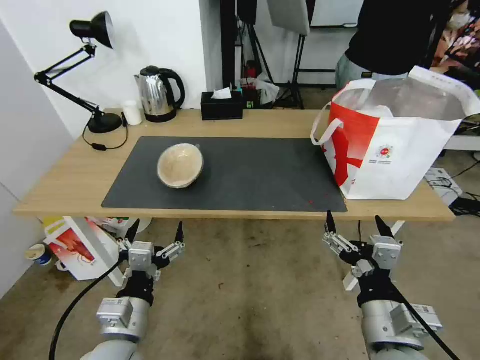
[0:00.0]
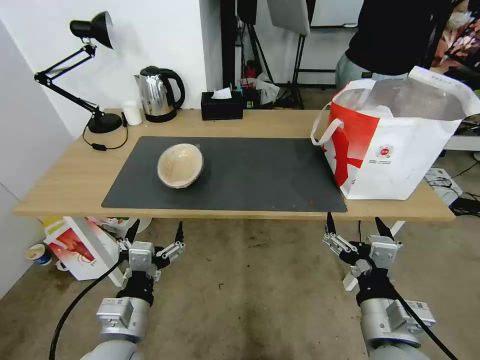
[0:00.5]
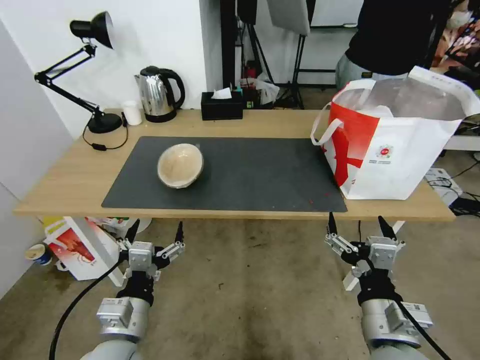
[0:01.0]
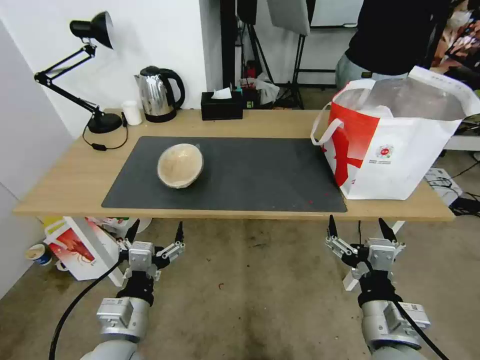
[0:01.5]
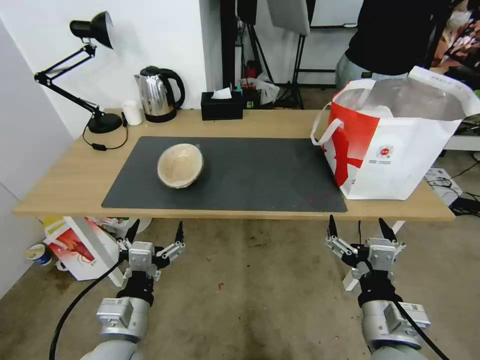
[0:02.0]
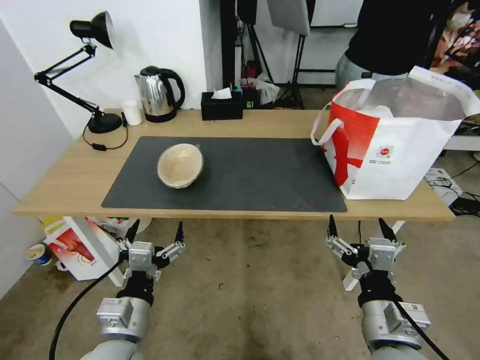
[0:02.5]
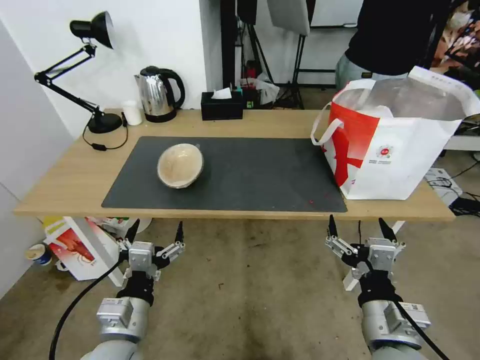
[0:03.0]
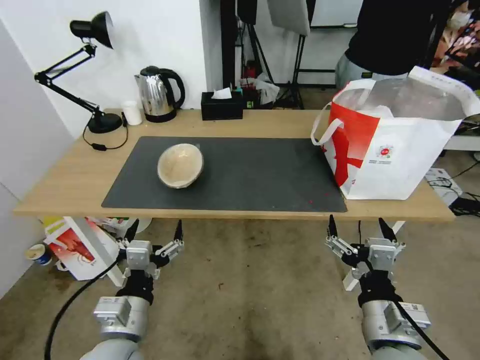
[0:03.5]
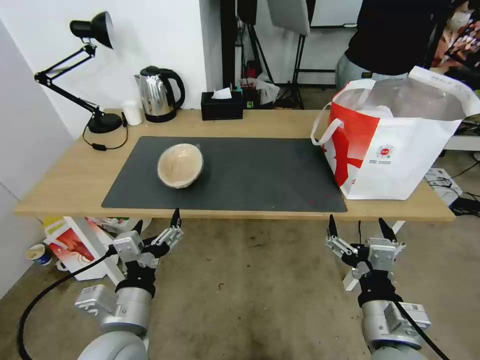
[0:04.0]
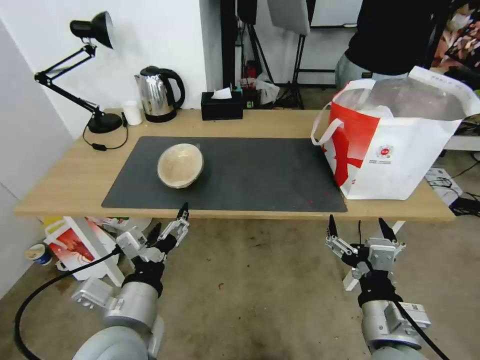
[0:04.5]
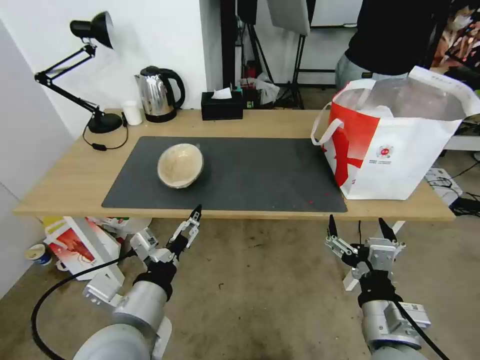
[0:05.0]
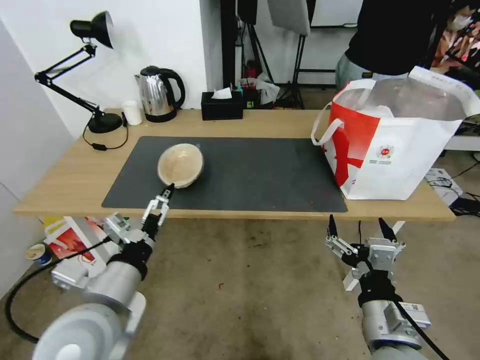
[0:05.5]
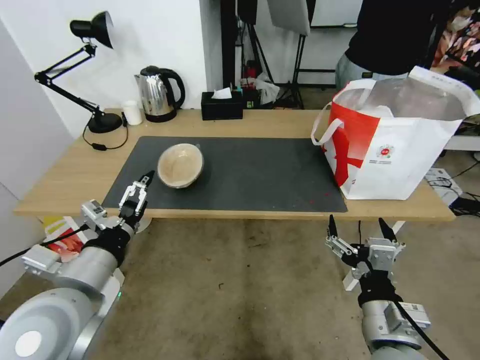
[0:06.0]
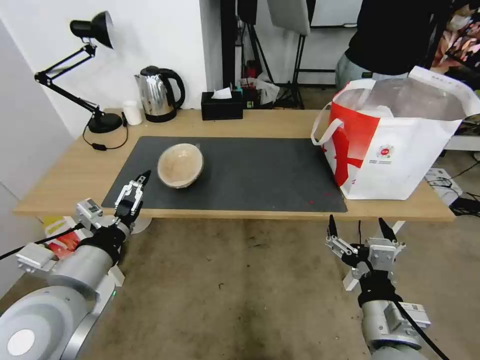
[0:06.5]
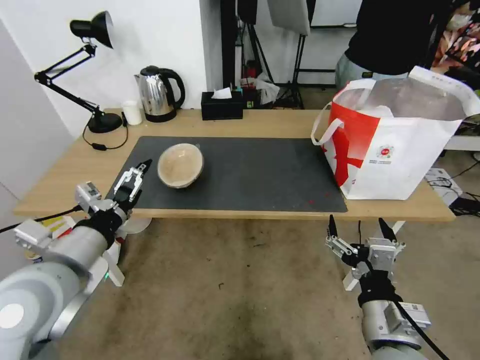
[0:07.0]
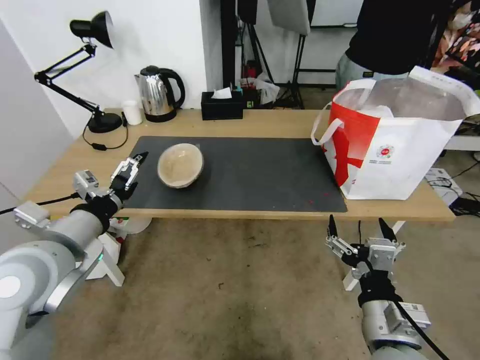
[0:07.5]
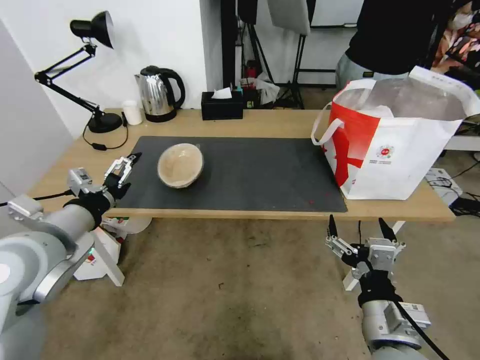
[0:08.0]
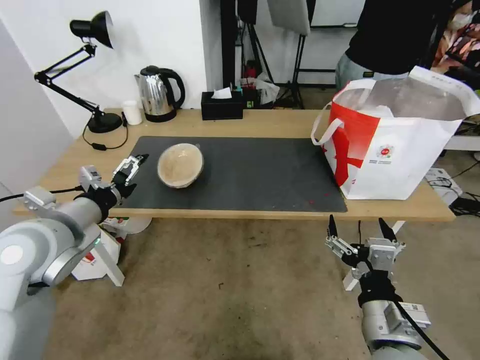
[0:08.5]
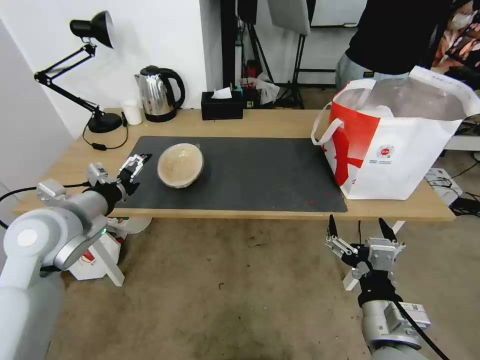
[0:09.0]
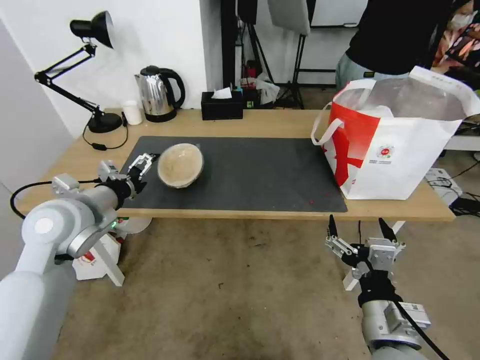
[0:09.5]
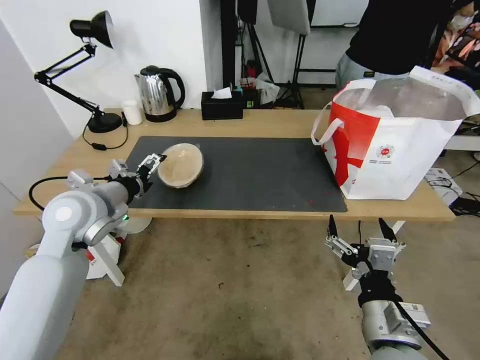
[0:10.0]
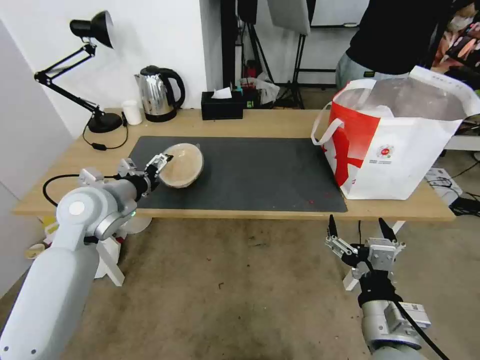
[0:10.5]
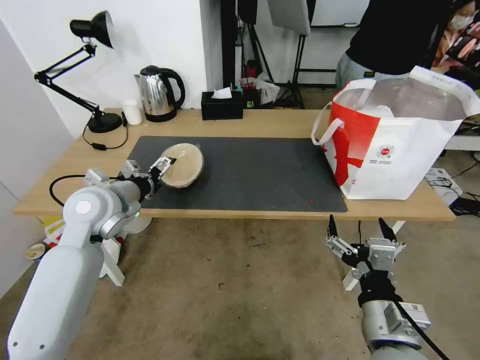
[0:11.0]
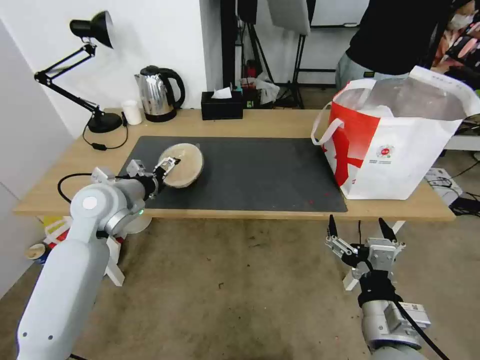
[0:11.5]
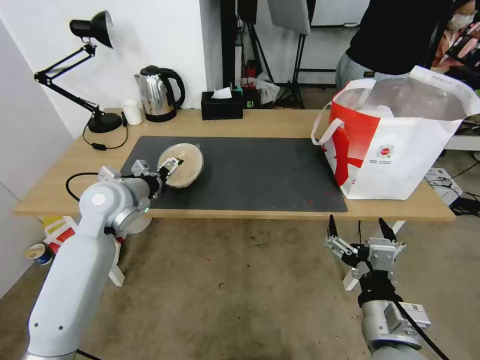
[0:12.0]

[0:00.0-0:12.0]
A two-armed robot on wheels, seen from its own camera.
Task of the whole recording: Pick up the trash from the table and place it into the takeout bag.
0:00.0 to 0:02.0: The grippers move only a little.
0:04.0 to 0:06.0: The left gripper is displaced upward and to the left by roughly 10 cm.
0:06.0 to 0:08.0: The left gripper moves forward and to the left, some 10 cm.
0:08.0 to 0:10.0: The left gripper heads forward, covering about 10 cm.
0:10.0 to 0:12.0: The left gripper ends up approximately 5 cm from where it was.

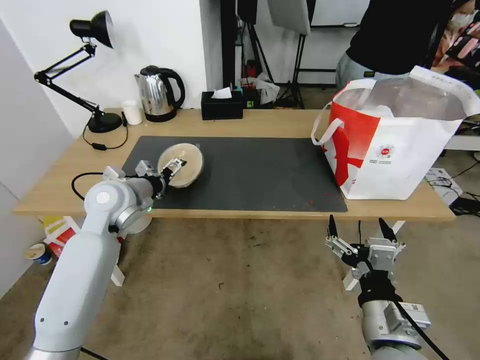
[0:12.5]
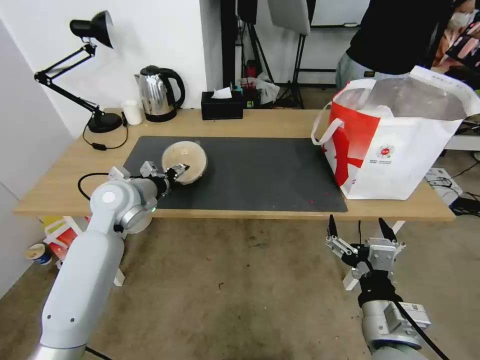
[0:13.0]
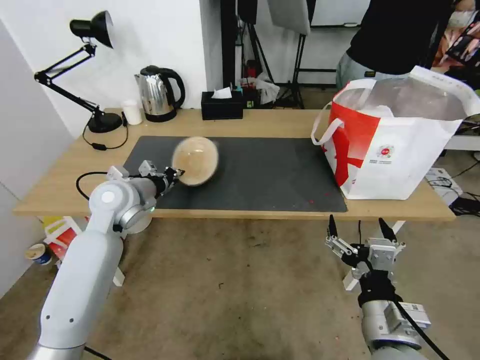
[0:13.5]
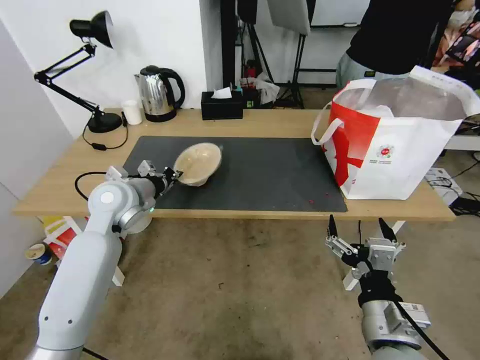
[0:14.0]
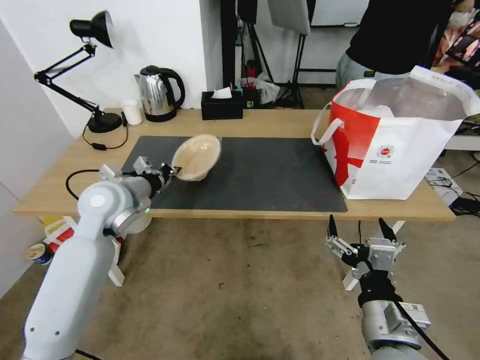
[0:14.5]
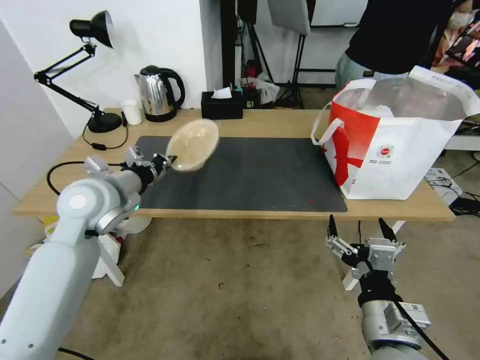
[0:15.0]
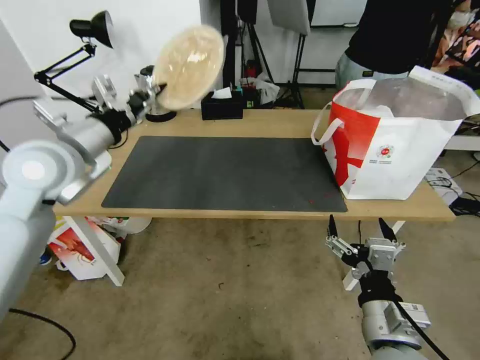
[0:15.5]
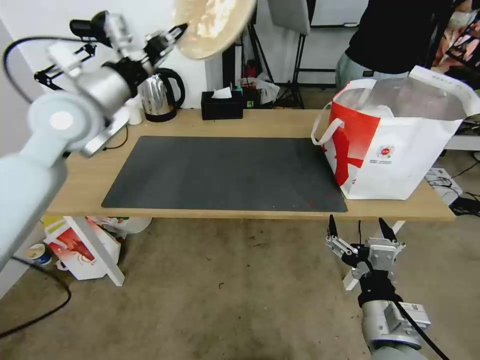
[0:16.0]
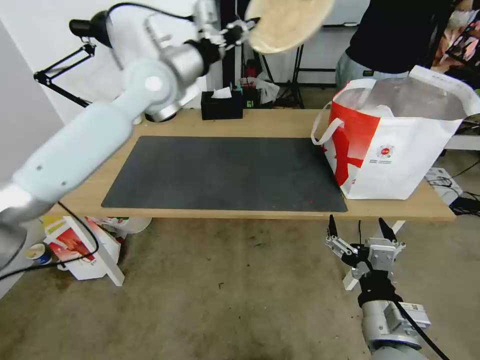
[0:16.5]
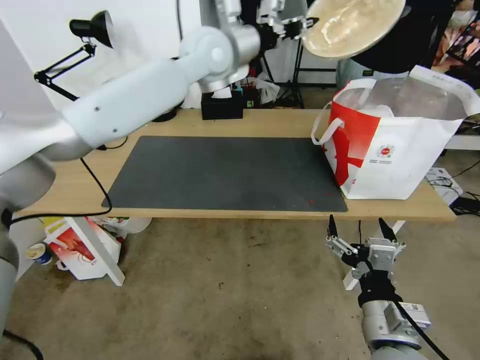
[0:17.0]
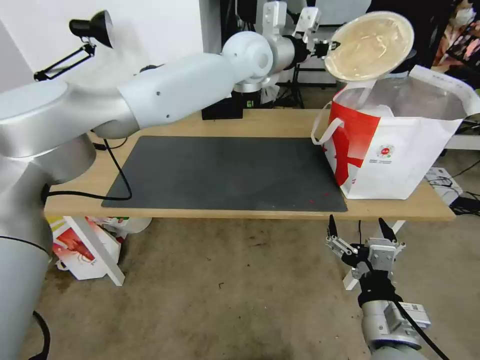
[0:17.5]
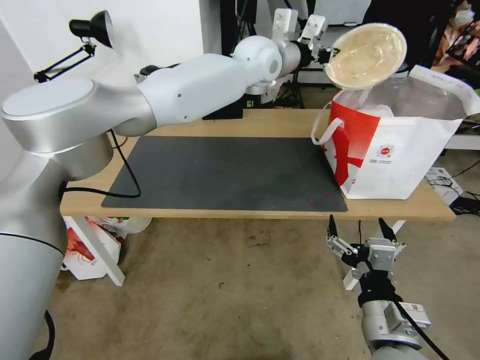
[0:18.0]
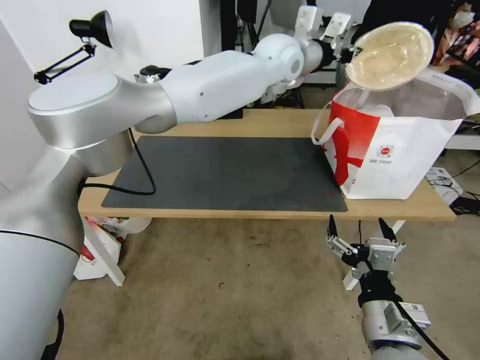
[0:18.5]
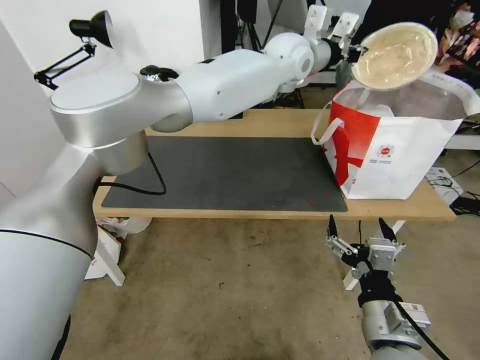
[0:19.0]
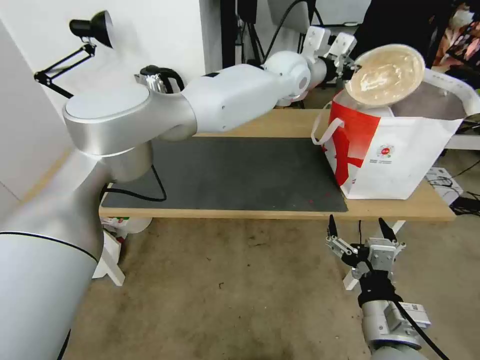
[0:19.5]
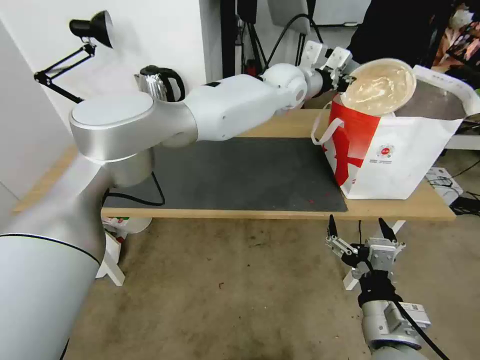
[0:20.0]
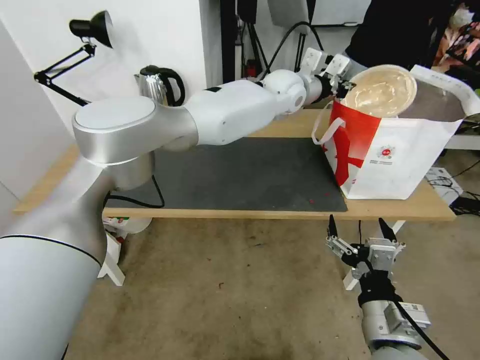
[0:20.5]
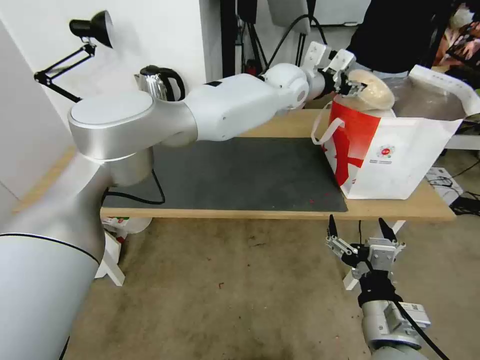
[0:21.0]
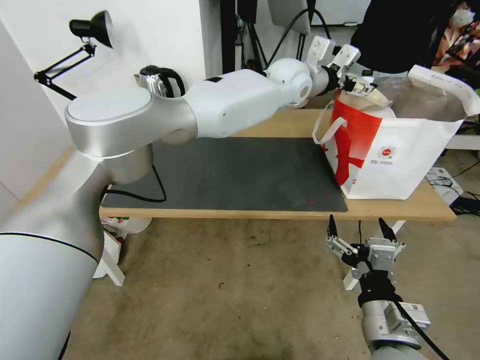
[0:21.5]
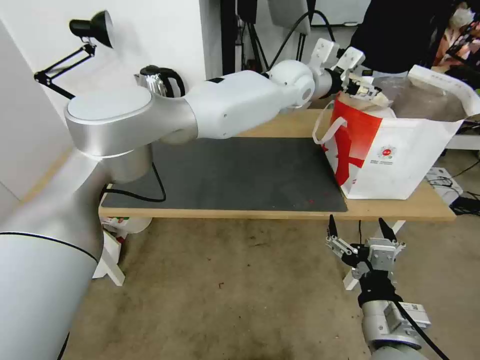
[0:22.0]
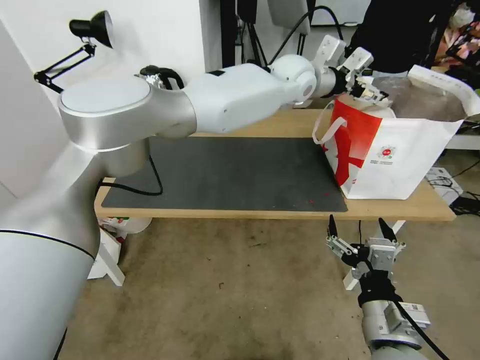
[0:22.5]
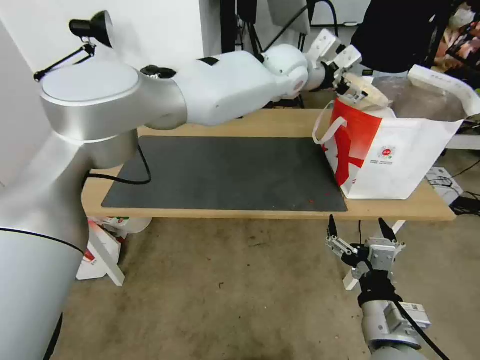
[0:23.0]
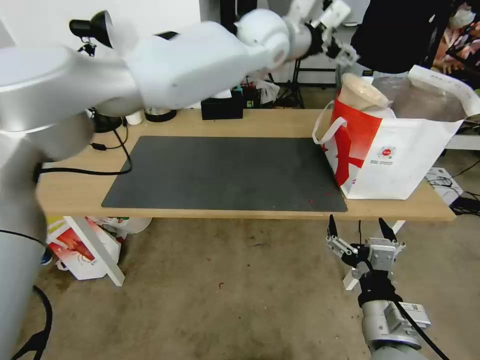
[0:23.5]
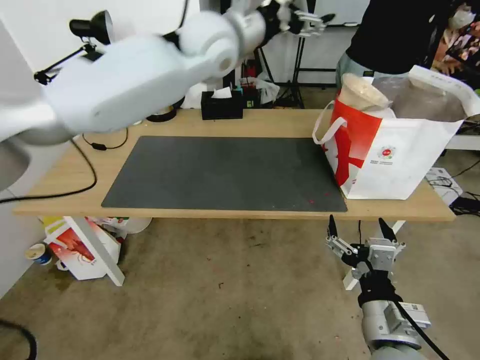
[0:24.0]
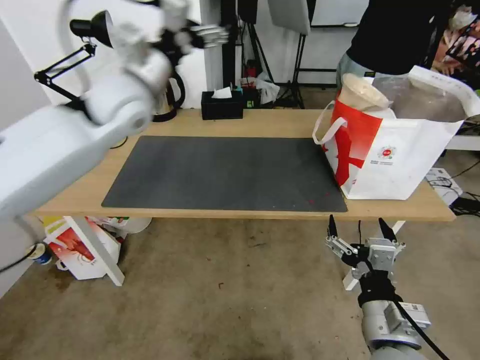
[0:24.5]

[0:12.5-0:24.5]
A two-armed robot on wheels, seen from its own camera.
Task of the whole recording: Pick up the trash from the table and place it into the takeout bag.
0:12.5 to 0:14.5: The left gripper closes its fingers.
0:14.5 to 0:16.5: The left gripper heads upward, forward and to the right, covering roughly 25 cm.
0:16.5 to 0:18.5: The left gripper moves to the right, approximately 25 cm.
0:18.5 to 0:20.5: The left gripper heads downward, covering about 5 cm.
0:20.5 to 0:22.5: The left gripper opens its fingers.
0:22.5 to 0:24.5: The left gripper shifts roughly 35 cm to the left and backward.

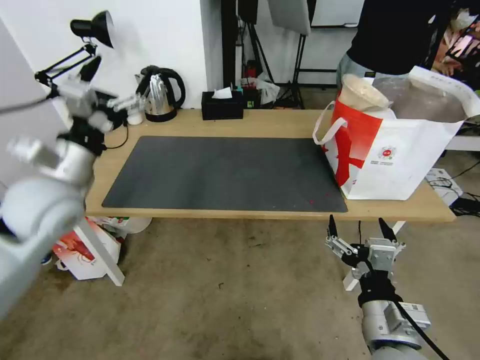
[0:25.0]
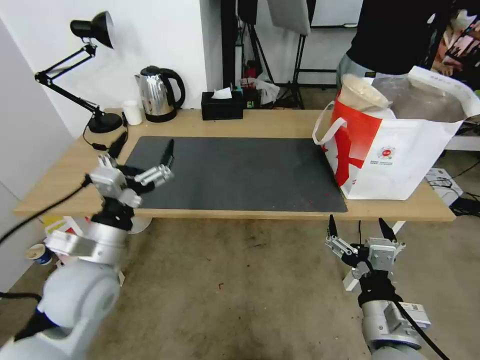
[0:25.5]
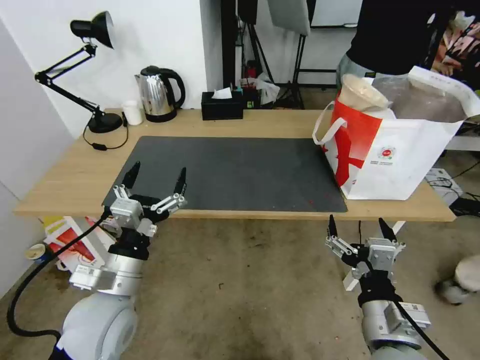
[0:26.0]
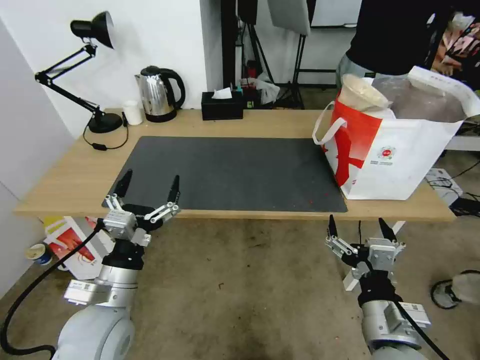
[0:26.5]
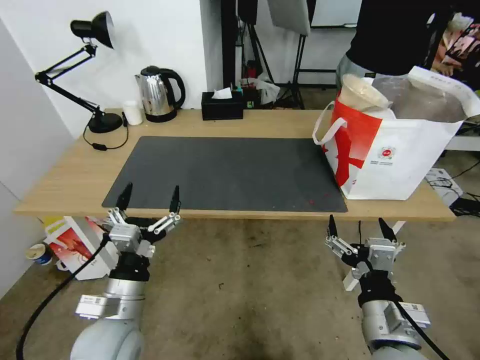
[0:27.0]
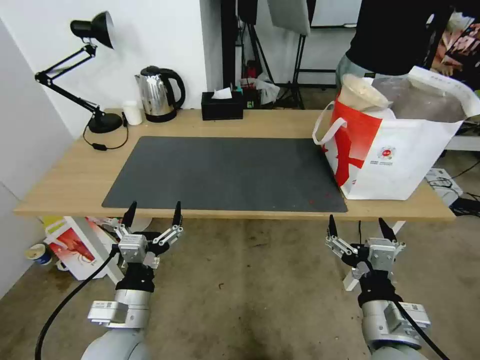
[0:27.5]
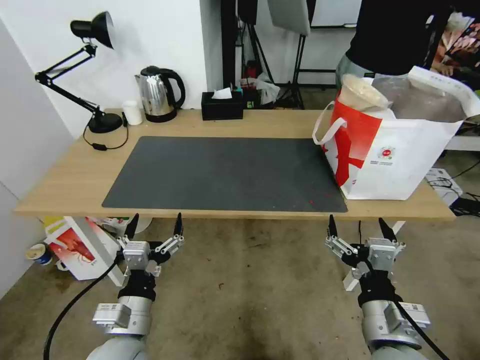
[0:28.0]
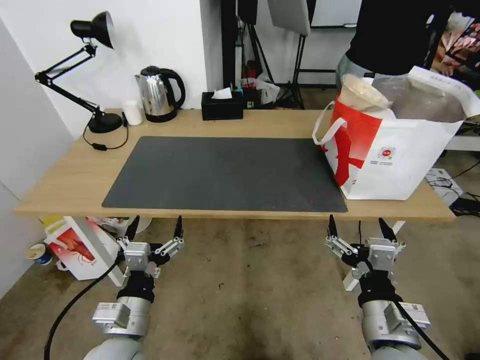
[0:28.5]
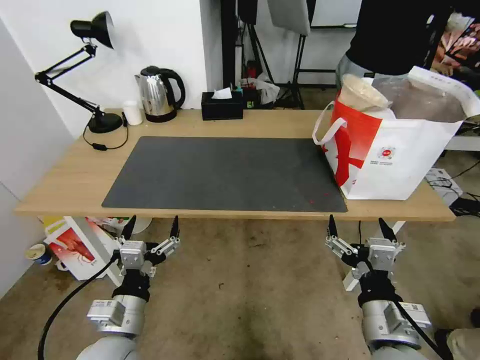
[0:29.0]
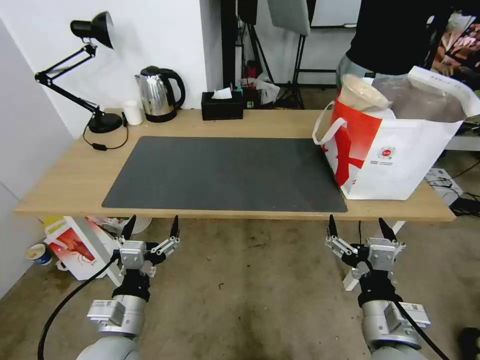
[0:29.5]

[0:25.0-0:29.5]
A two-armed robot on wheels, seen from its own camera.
Task of the whole recording: Pick up the trash from the table and place it into the takeout bag.
0:25.0 to 0:27.0: The left gripper is displaced downward, backward and to the right by some 25 cm.
0:27.0 to 0:29.5: There are only small adjustments of the grippers.
